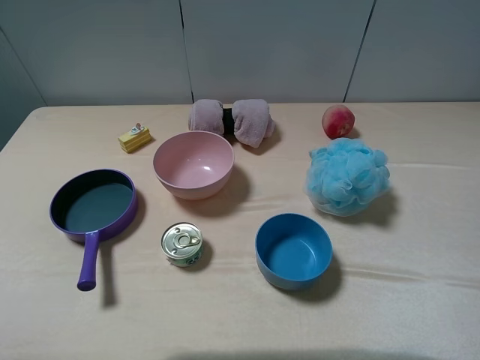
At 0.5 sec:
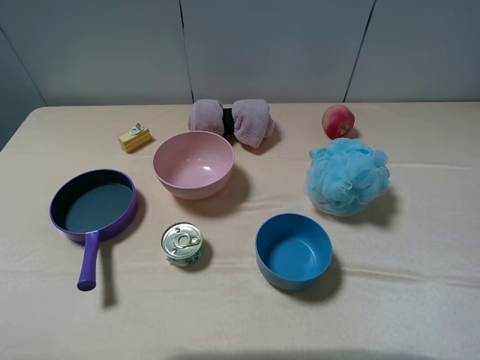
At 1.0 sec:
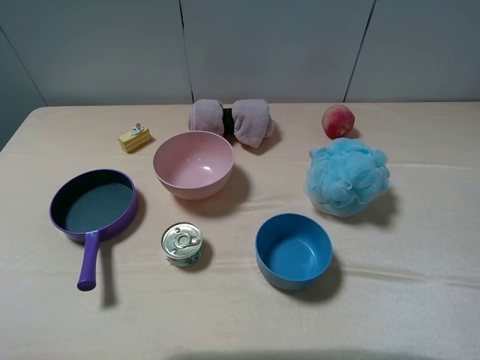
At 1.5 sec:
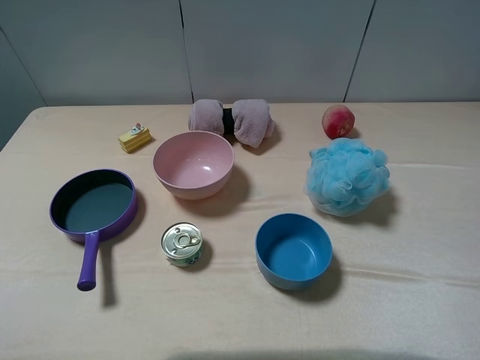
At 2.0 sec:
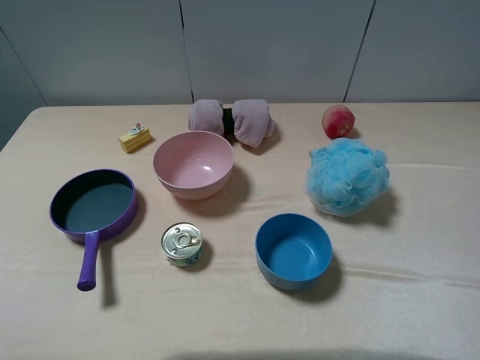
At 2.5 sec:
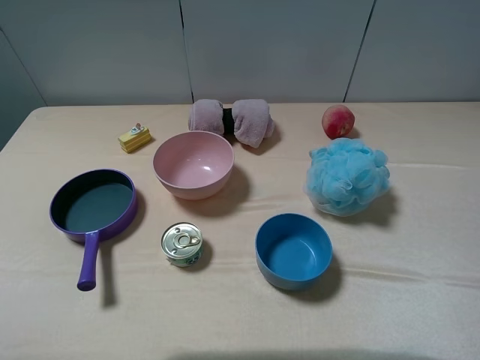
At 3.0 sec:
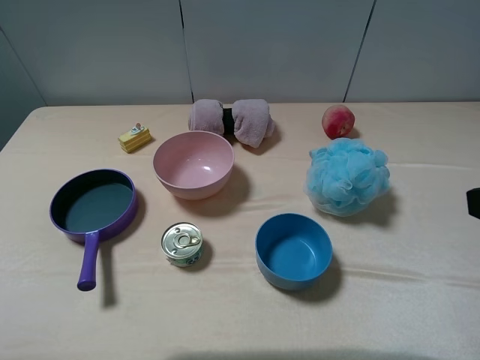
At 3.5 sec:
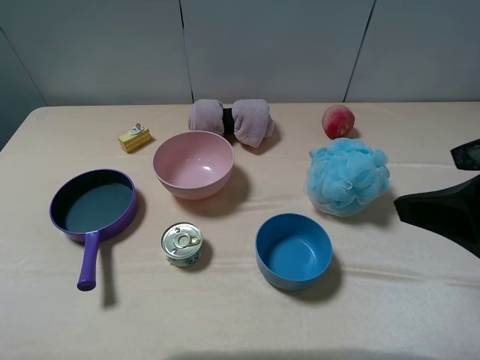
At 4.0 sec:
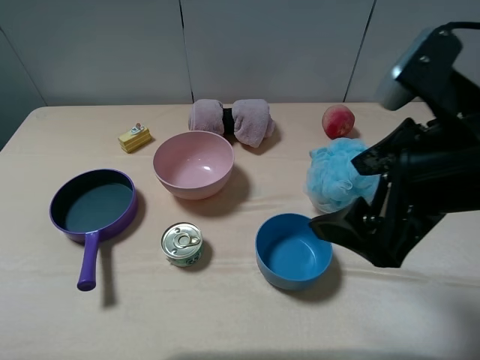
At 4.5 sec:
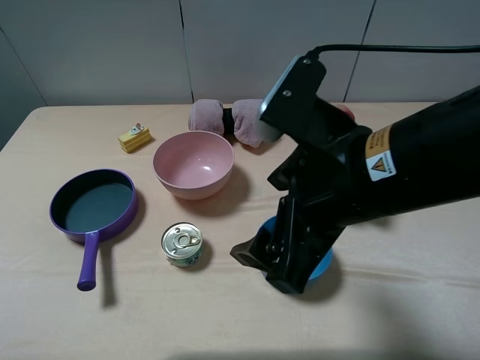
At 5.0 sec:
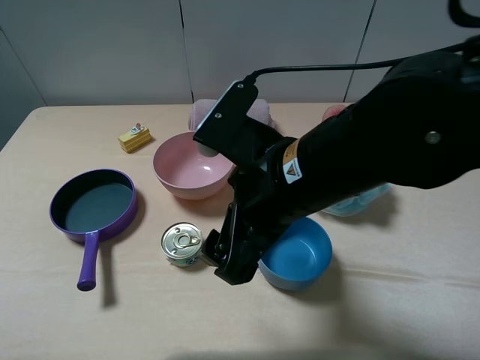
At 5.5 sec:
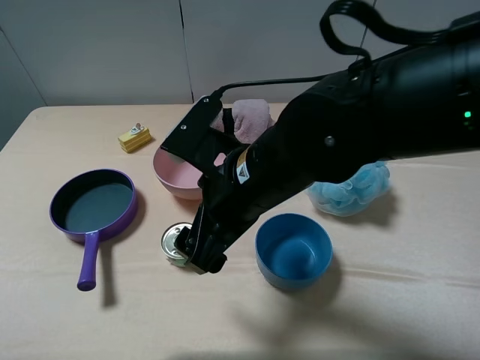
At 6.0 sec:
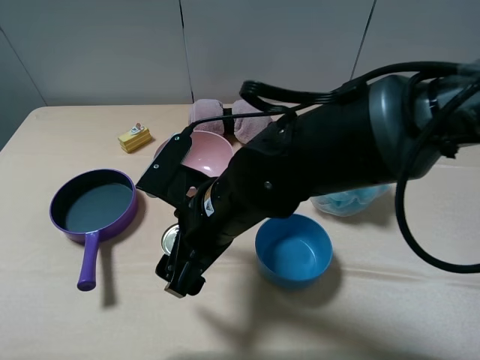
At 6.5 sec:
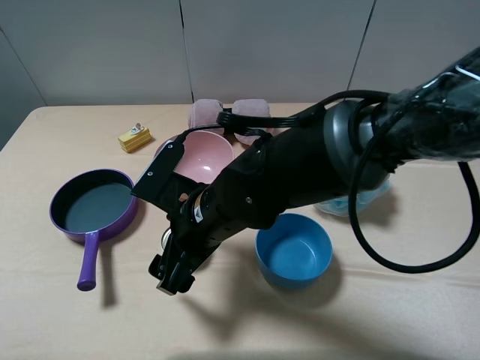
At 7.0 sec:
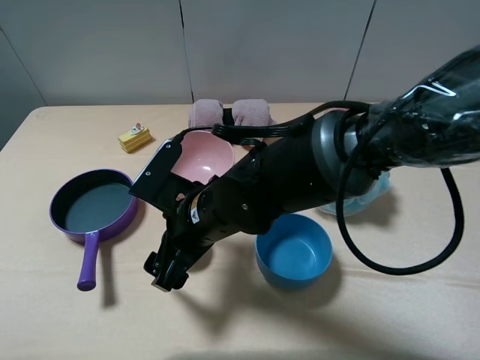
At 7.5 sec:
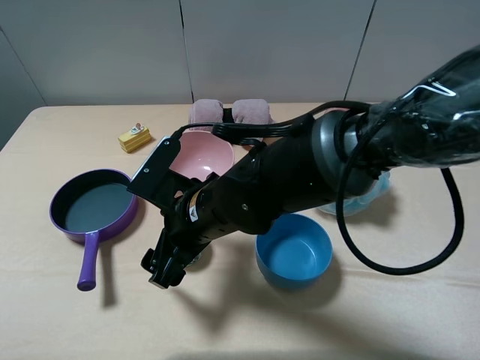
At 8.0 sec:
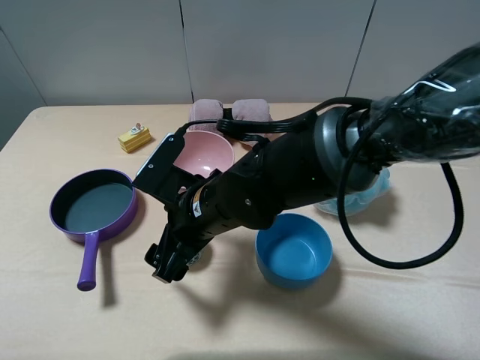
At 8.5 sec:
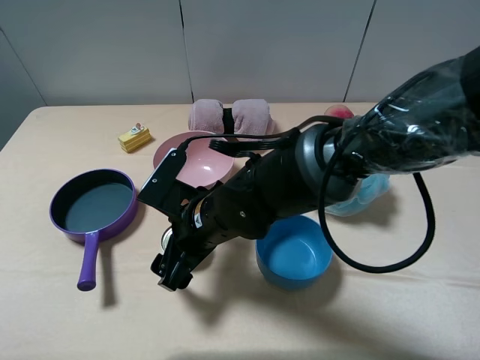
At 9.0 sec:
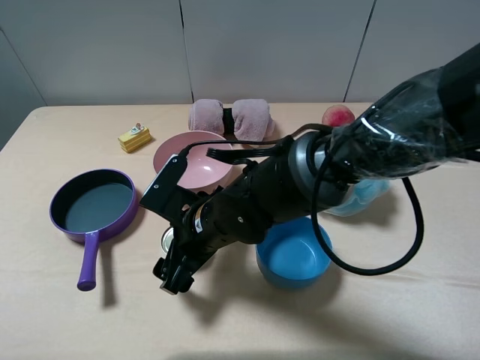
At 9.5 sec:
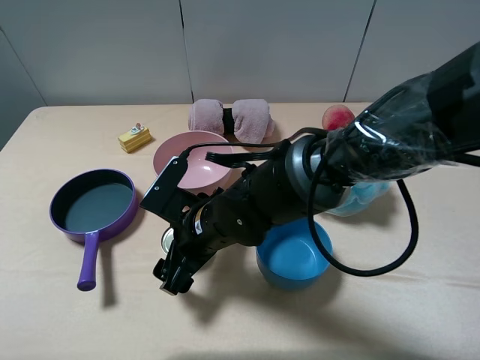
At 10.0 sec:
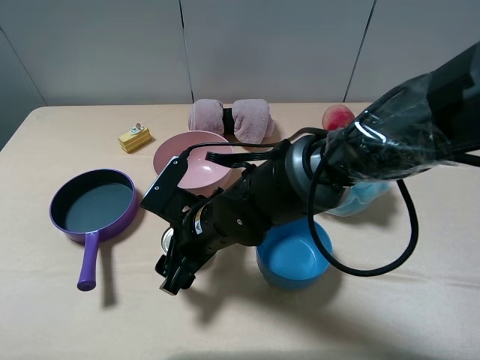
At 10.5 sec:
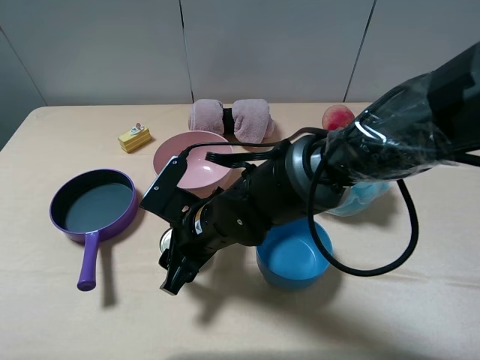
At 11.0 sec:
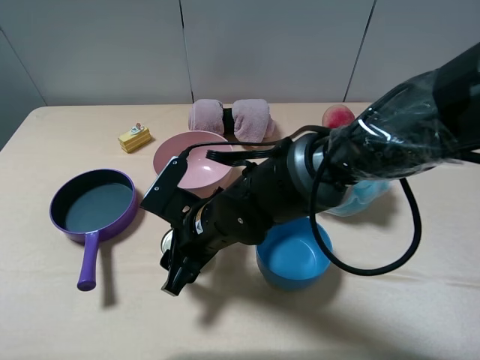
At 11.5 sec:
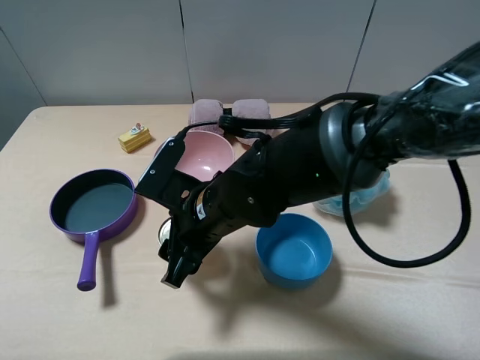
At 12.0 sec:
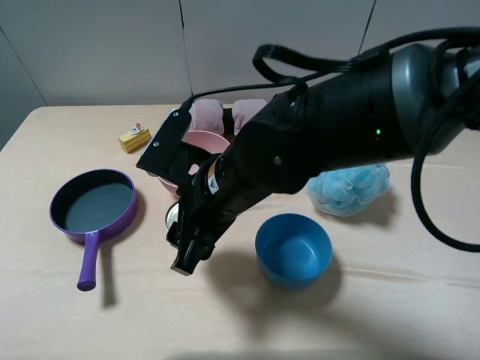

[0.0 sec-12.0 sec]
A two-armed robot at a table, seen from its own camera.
Task of the whole recording: pick up an item with a gripper and place it in a random container on the table.
Step, 0.0 sec to 10.5 sec: Grasp the tin with the right gripper.
0.0 sec to 2.0 sec: Both grippers stay put.
2.0 sec to 4.0 sec: The right gripper heads to the left and forward, covering approximately 20 cm.
4.0 sec to 6.0 sec: The right gripper moves to the left and downward, about 20 cm.
6.0 sec to 8.0 sec: The grippers make only small movements.
8.0 sec to 10.0 sec: The right gripper closes up.
10.0 sec to 12.0 sec: The right gripper heads upward, covering roughly 10 cm, and closes its fingers.

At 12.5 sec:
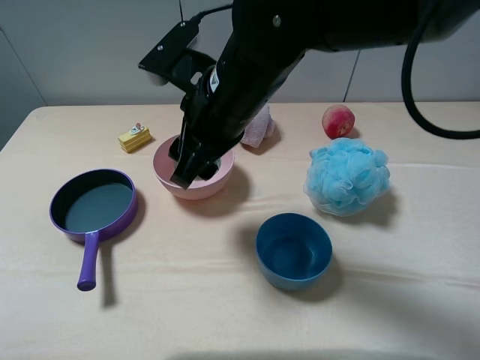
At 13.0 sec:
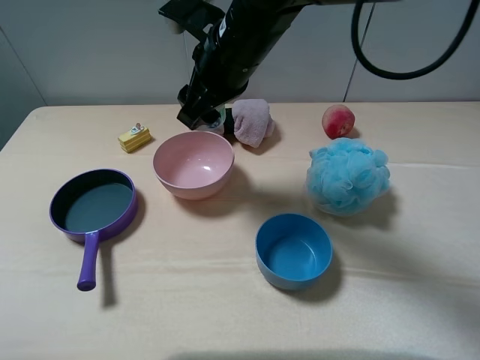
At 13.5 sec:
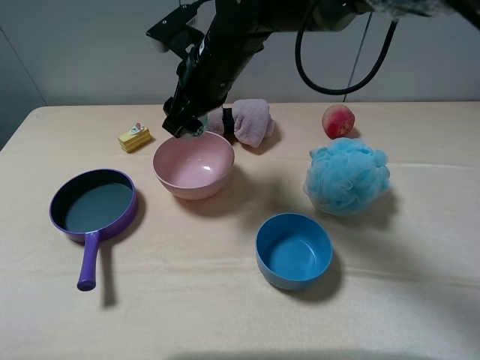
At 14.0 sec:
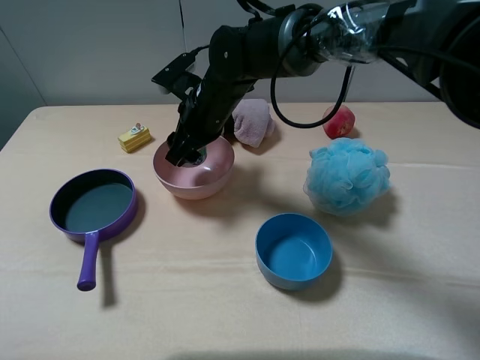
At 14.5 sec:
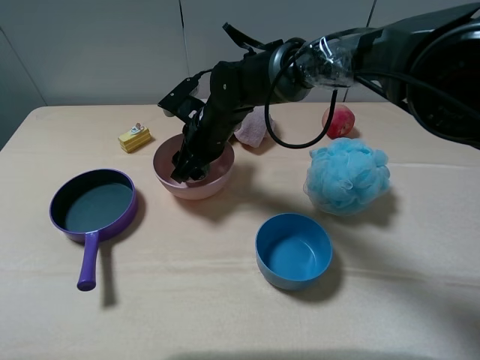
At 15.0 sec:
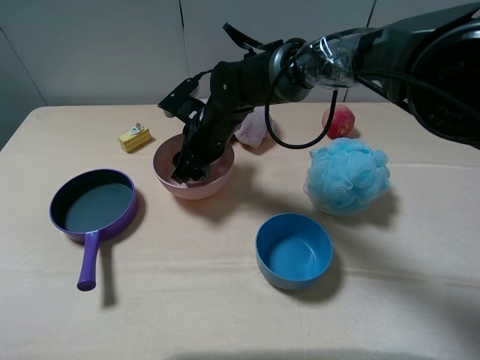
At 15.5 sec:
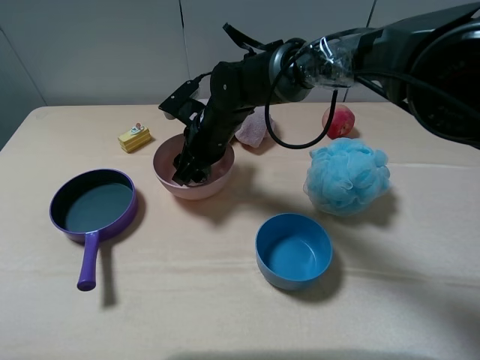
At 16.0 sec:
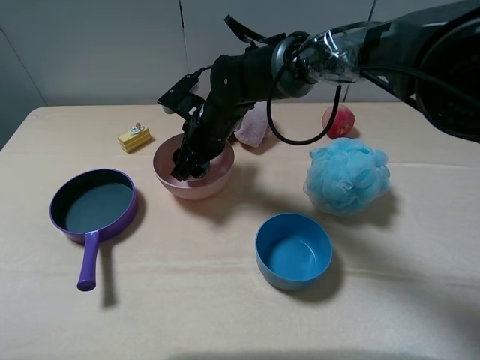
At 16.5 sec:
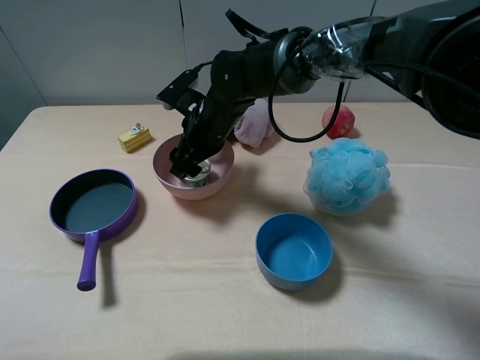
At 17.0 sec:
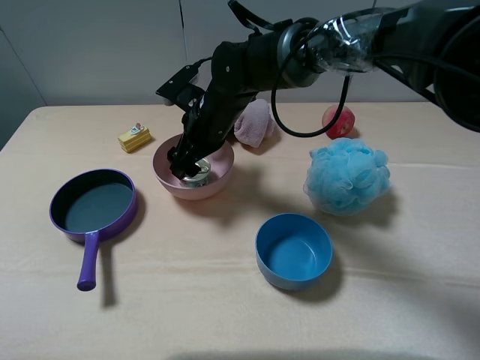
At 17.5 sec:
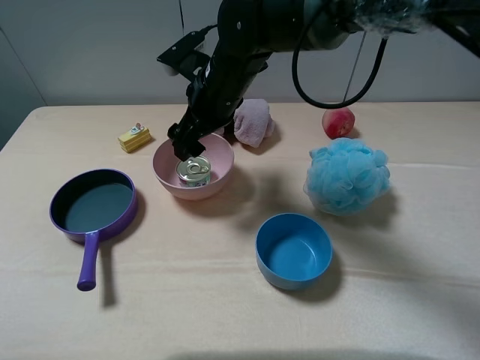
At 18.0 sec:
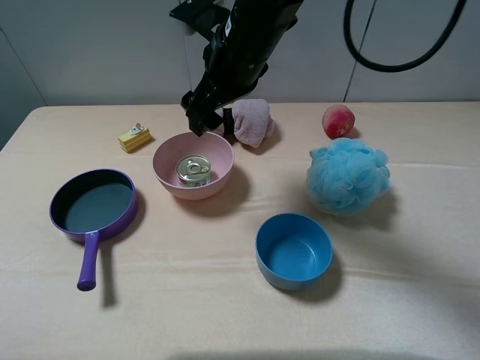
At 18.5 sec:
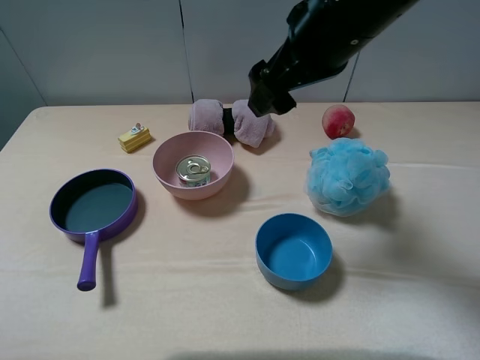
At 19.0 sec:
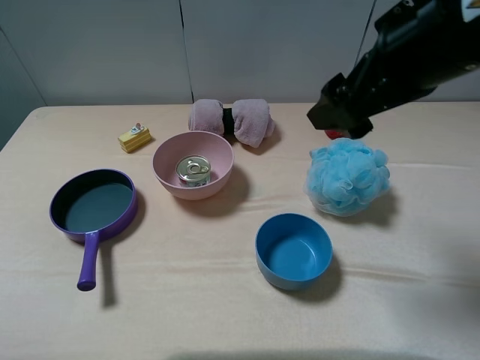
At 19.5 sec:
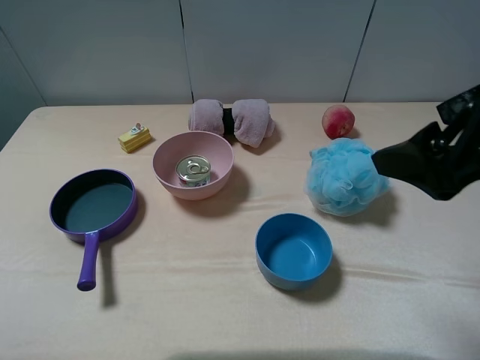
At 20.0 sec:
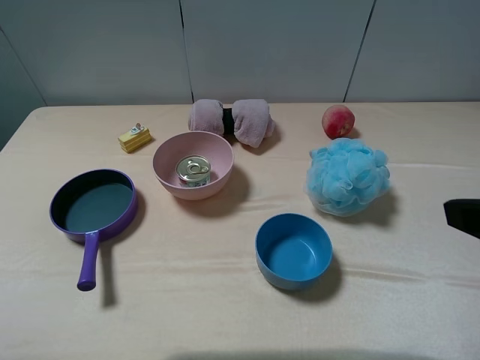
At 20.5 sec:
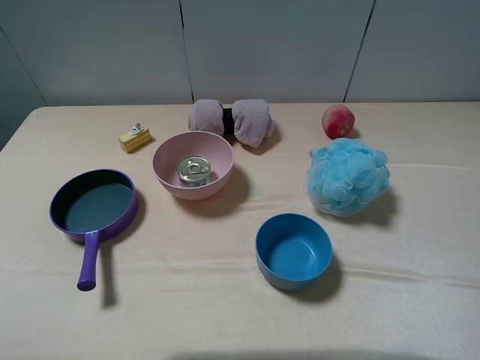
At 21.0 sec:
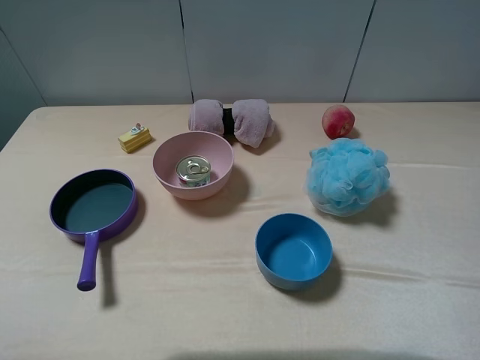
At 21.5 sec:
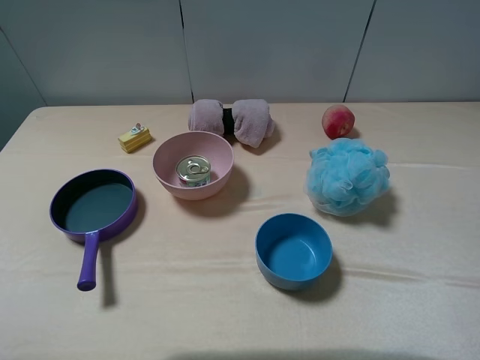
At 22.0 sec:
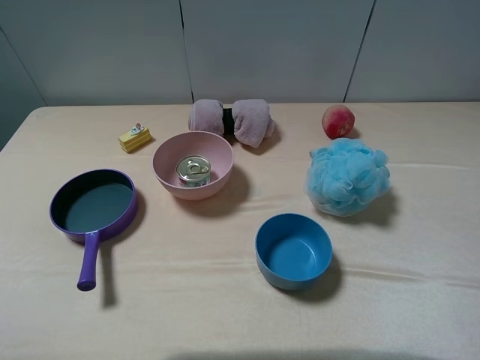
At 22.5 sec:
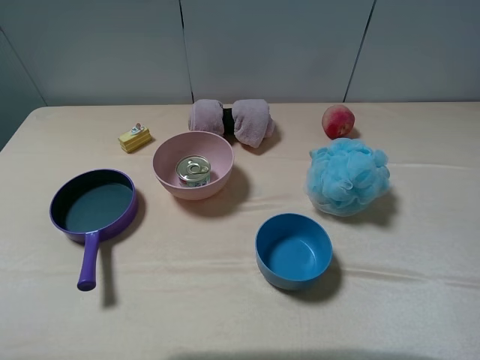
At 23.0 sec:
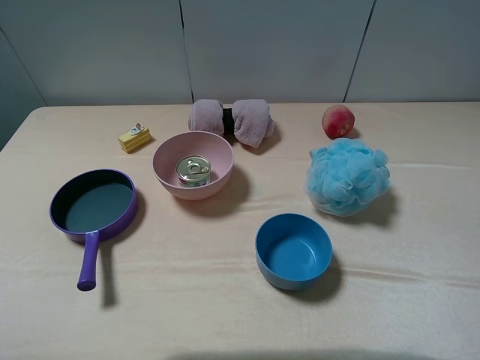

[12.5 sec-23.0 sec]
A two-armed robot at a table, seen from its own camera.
Task of the whole recording: pick up an item with a gripper and place it in a random container on the table.
Step, 12.5 sec to 17.0 sec: Place the tin into the pink pot with the right gripper.
12.5 sec to 14.5 sec: The right gripper shifts about 15 cm downward and forward.
14.5 sec to 16.5 sec: The right gripper opens.
16.5 sec to 19.0 sec: The right gripper moves to the right, upward and backward, some 30 cm, and opens up.
19.0 sec to 21.0 sec: The right gripper heads backward and to the right, covering some 25 cm.
